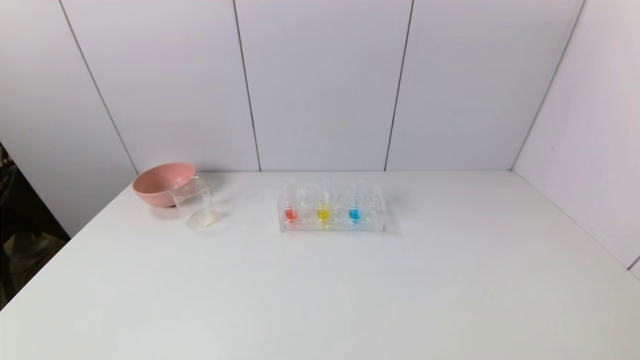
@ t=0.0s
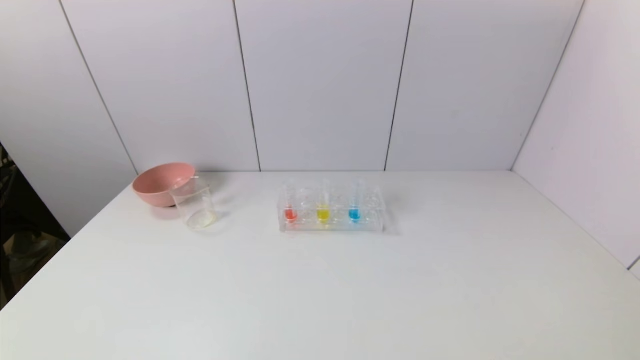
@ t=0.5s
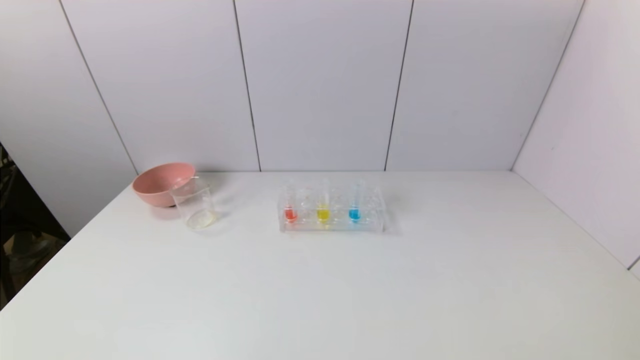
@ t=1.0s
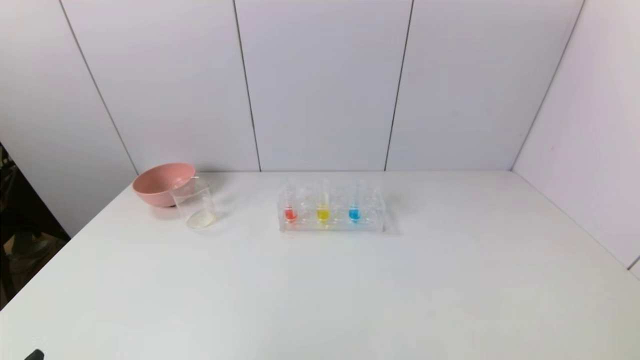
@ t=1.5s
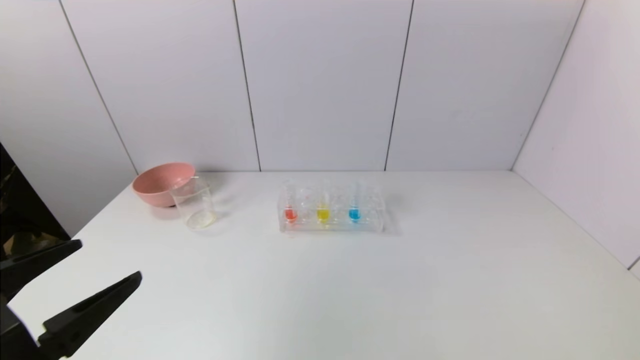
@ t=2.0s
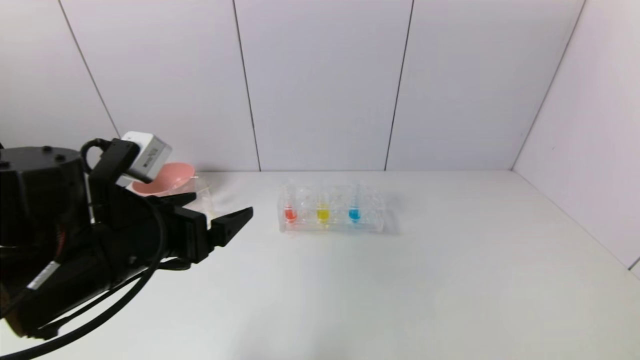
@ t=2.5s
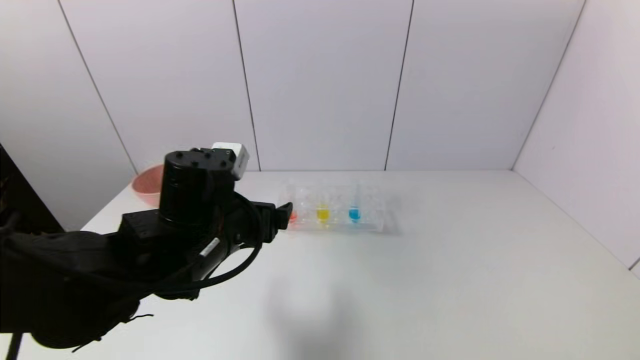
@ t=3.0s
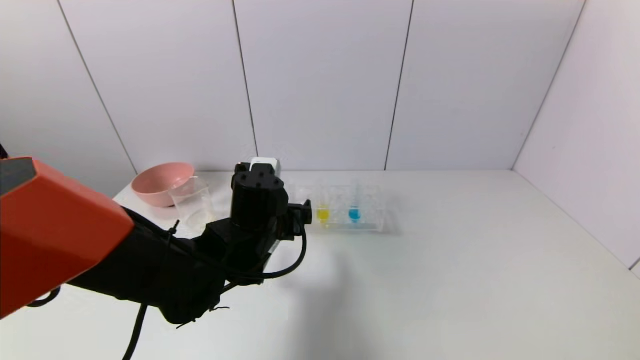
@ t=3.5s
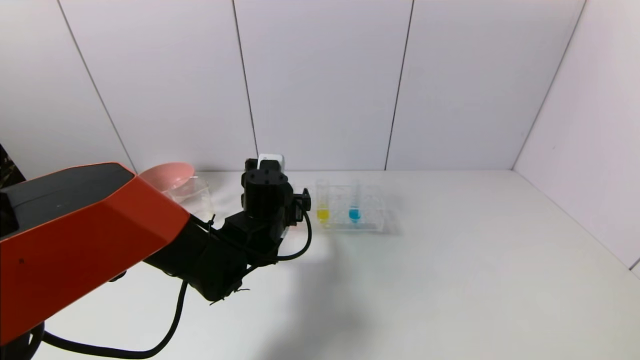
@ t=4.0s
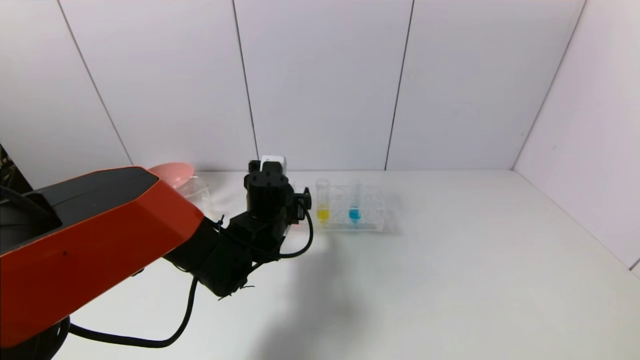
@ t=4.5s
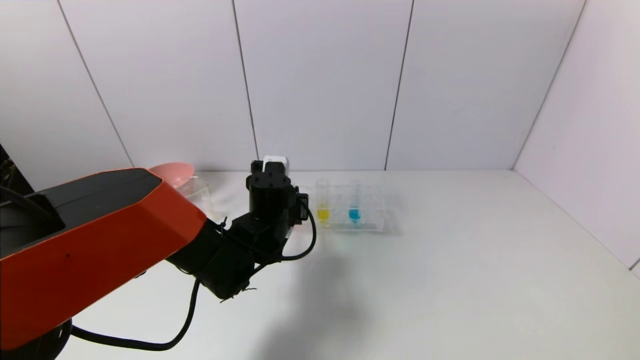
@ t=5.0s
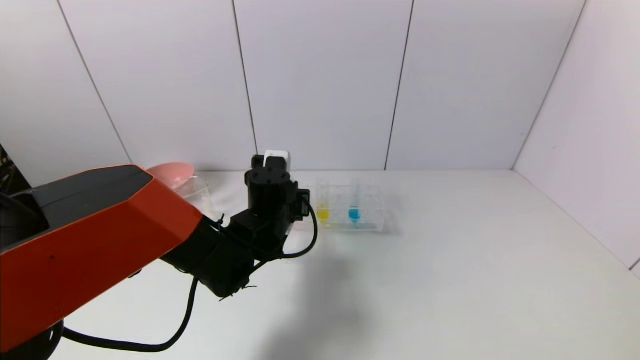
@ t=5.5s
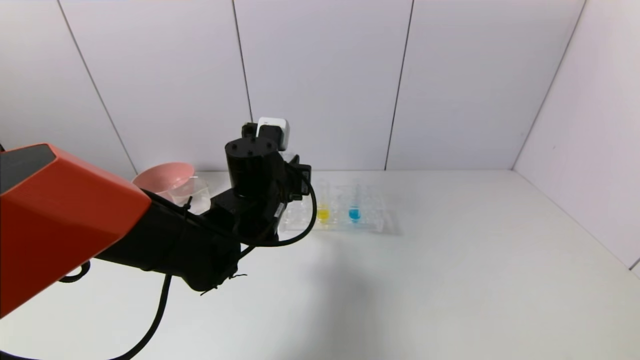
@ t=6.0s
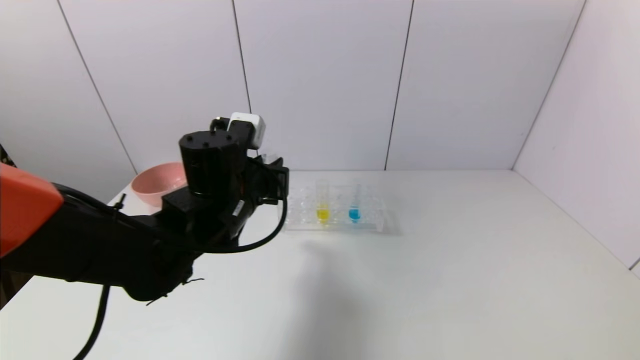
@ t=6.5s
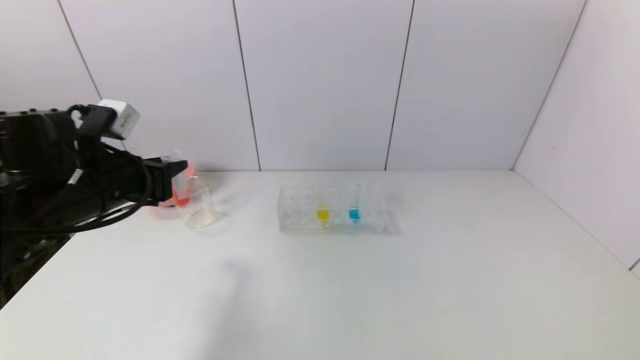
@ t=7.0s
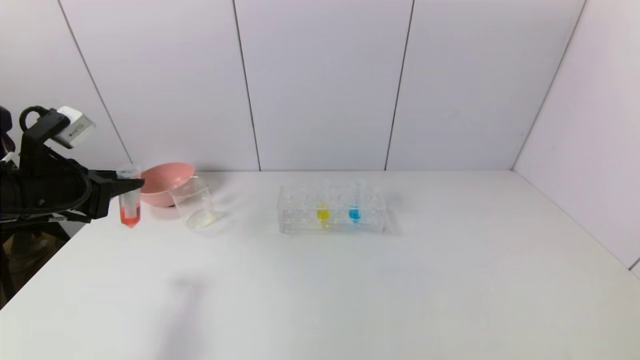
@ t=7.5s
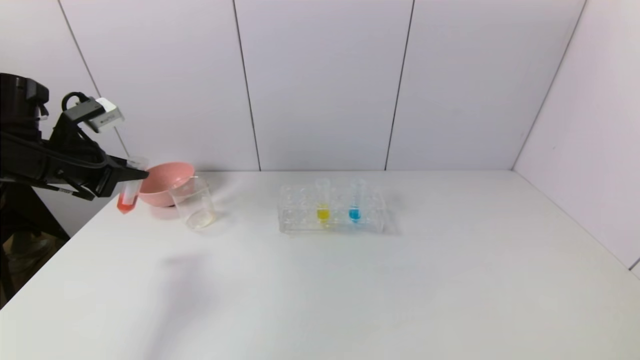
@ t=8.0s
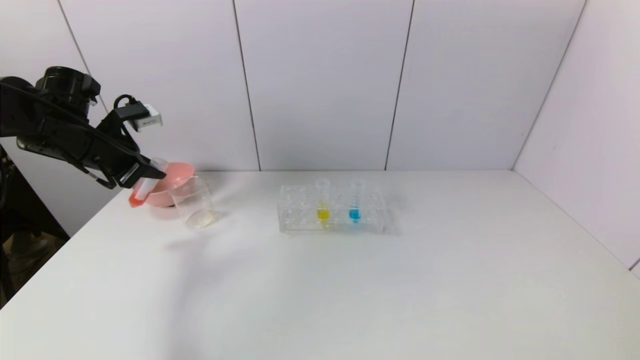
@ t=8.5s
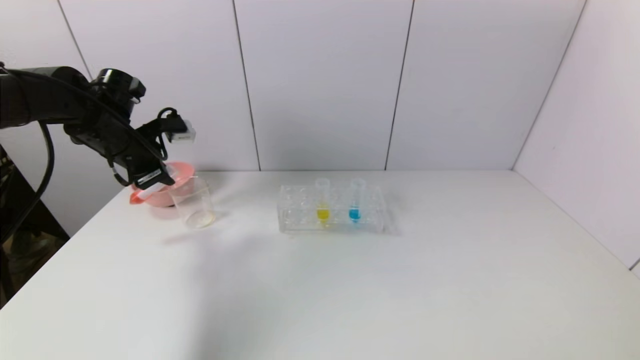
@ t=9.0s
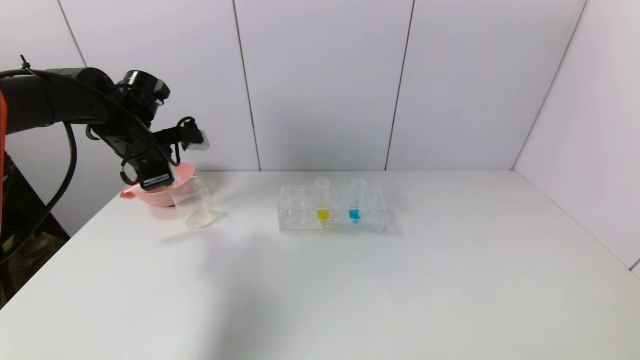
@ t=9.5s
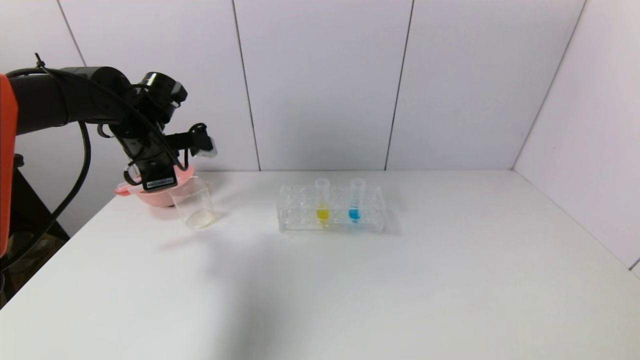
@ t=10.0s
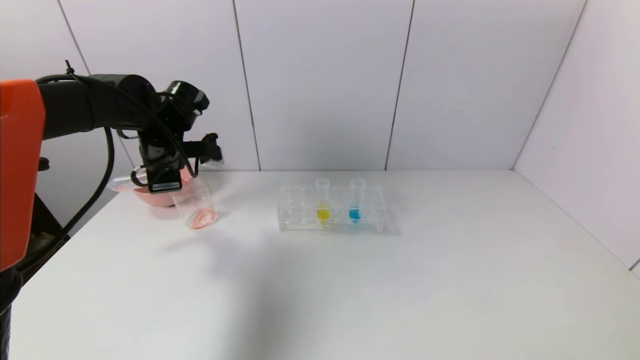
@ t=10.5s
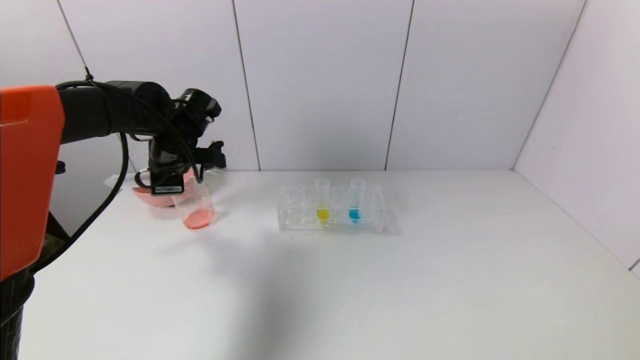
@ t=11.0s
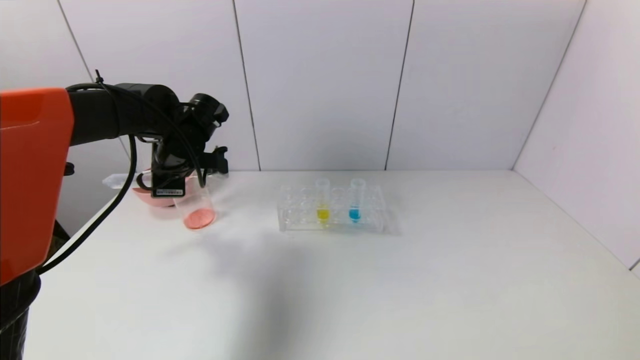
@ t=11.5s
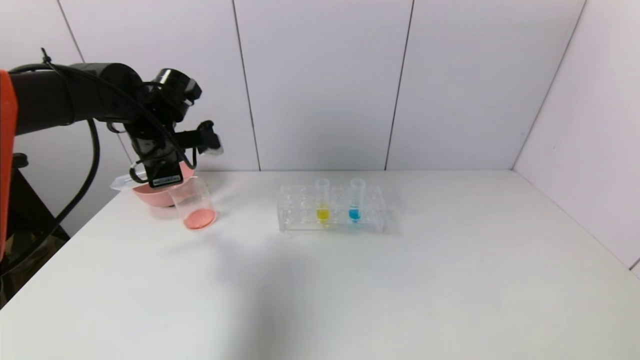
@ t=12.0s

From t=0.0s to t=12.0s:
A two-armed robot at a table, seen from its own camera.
Task of the whole recording: pick up the test tube with yellow pigment and the test tube with red pigment by grippers and pour them into the beaker.
Step, from t=0.0s to t=5.0s: Grasp the red reagent with the left gripper.
Step, from t=5.5s to t=11.5s: Pour the red reagent into the graduated cylinder with the left gripper.
From t=0.0s to t=2.0s: The left gripper moves upward and forward, about 15 cm.
From t=2.0s to t=4.0s: The left gripper travels forward and to the right by some 30 cm.
From t=4.0s to t=6.0s: The left gripper is displaced upward by roughly 5 cm, and closes.
From t=6.0s to t=8.0s: The left gripper goes roughly 30 cm to the left.
From t=8.0s to t=10.0s: The left gripper goes some 15 cm to the right and forward.

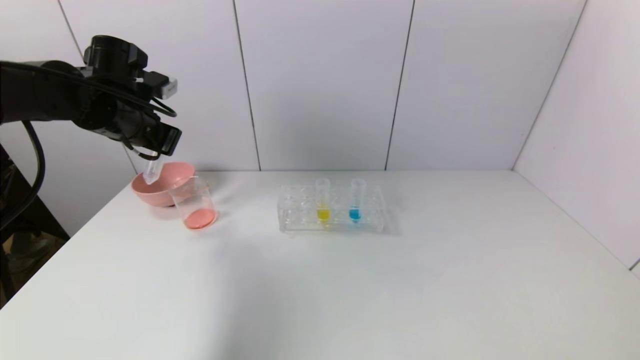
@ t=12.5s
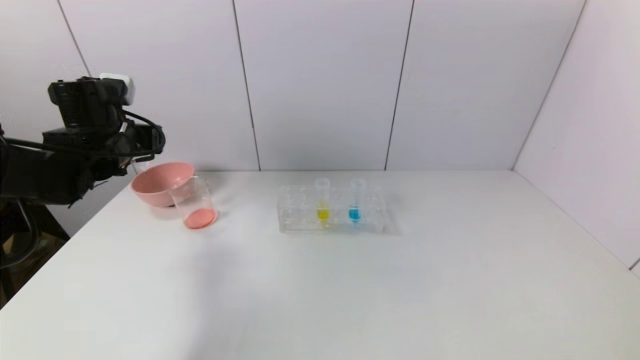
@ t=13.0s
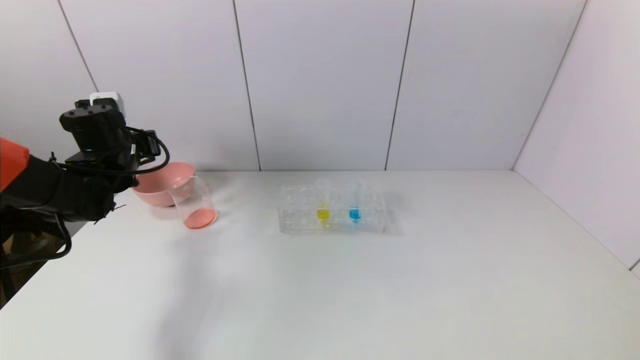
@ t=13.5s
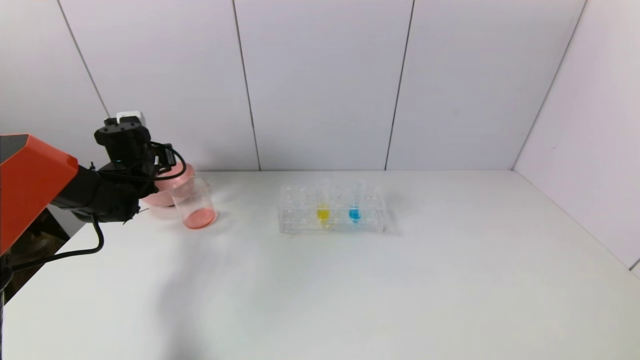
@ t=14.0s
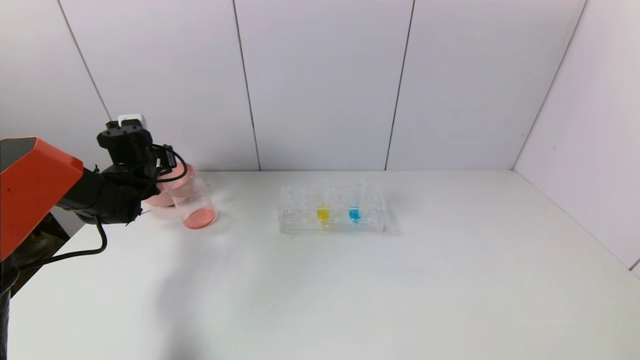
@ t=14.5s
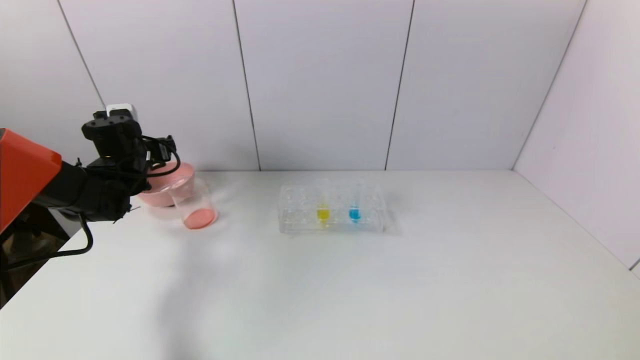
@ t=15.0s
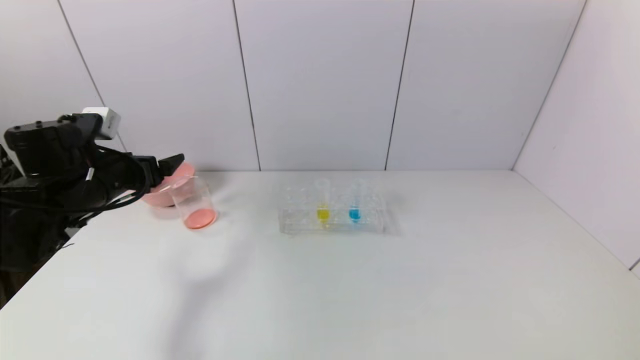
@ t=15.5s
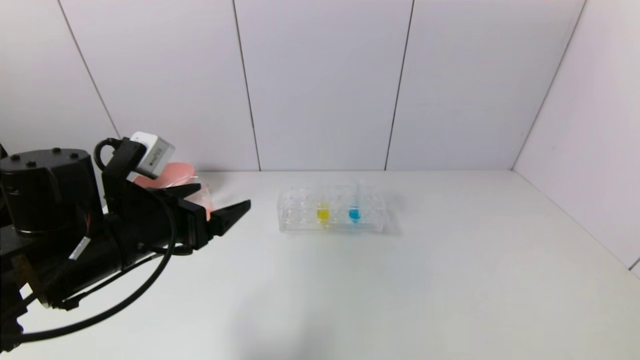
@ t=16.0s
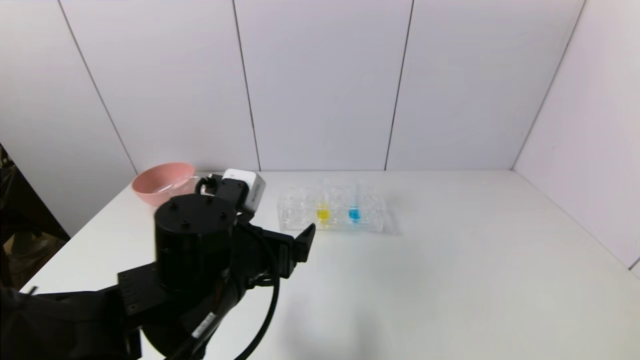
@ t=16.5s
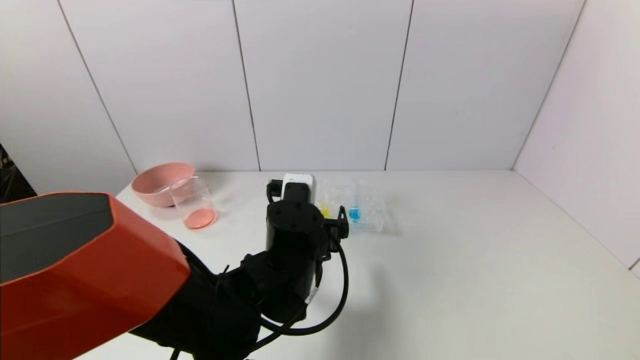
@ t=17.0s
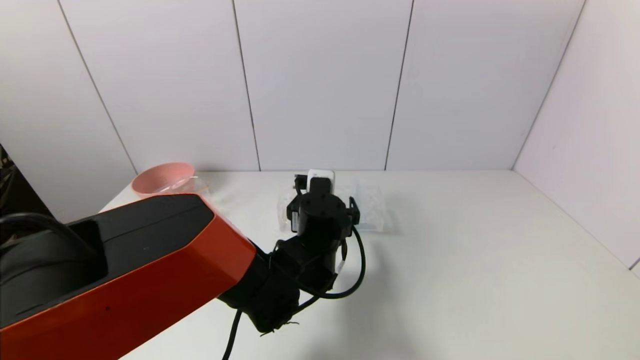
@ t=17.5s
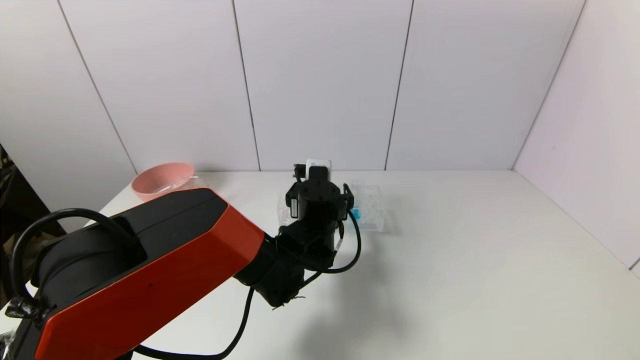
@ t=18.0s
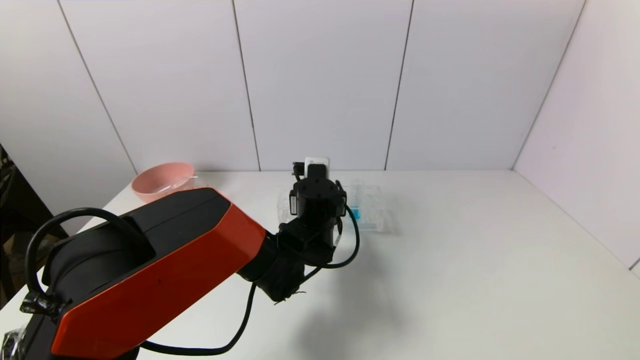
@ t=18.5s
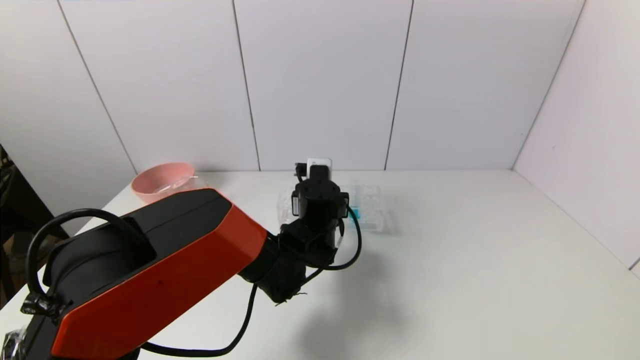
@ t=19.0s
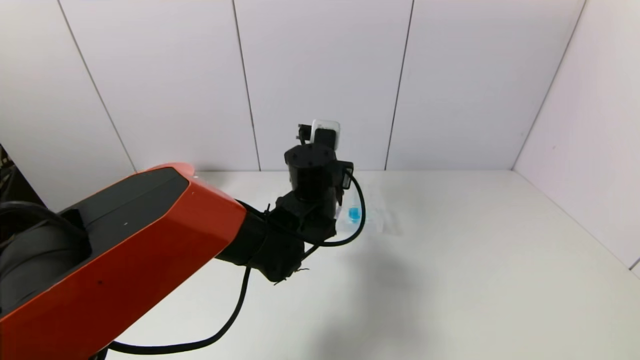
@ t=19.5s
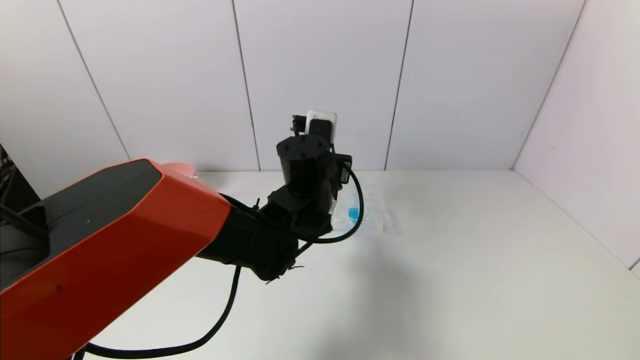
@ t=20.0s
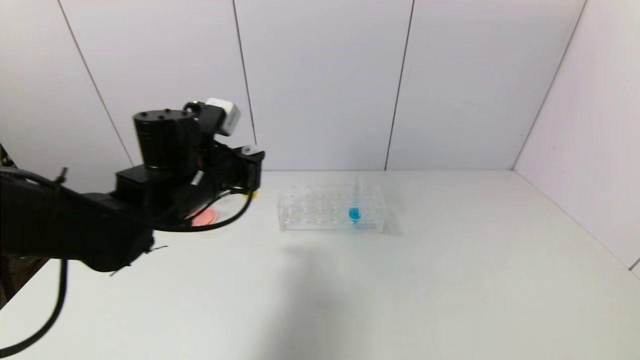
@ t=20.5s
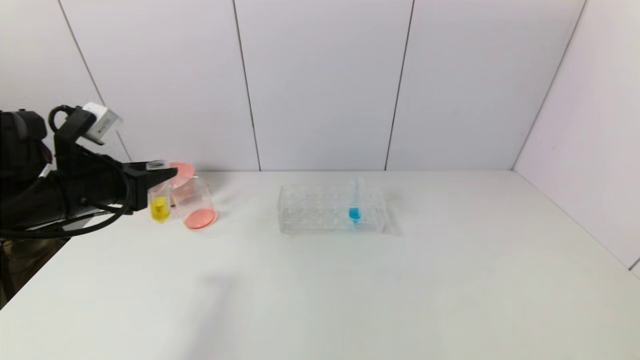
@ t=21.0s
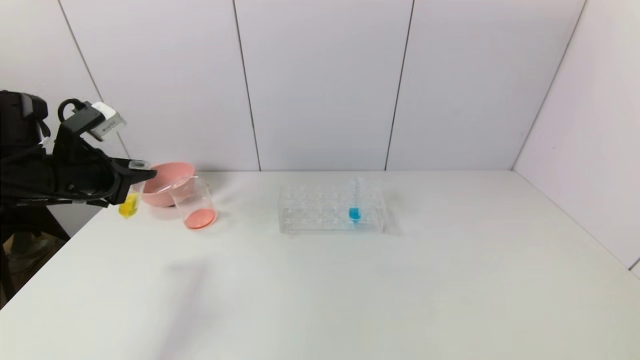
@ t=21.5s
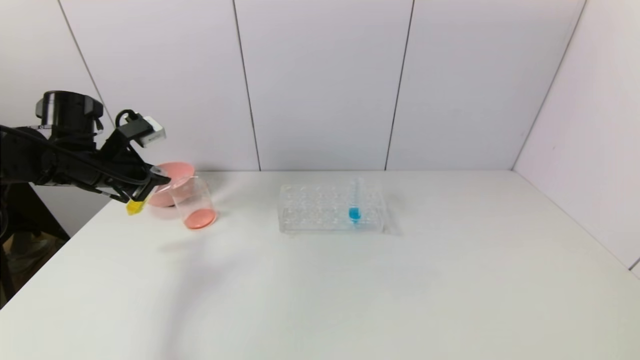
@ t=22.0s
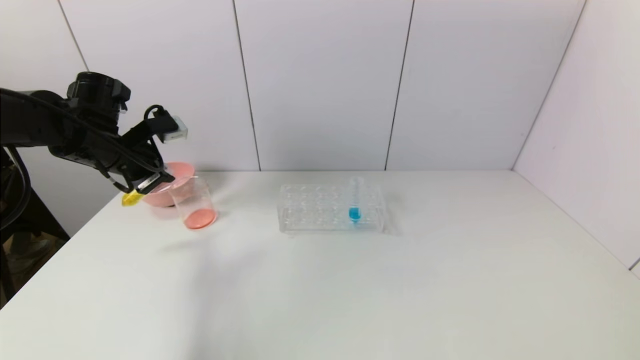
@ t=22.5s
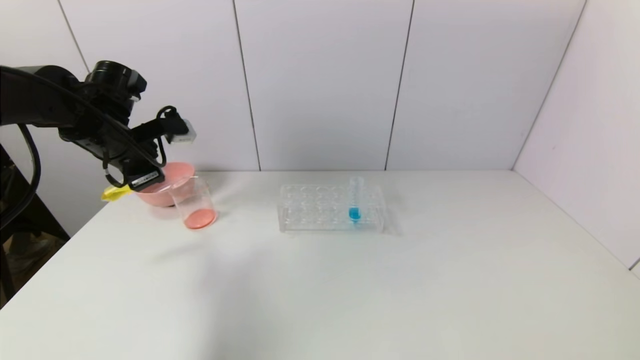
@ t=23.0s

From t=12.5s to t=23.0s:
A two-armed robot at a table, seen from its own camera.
Task of the whole recording: pick up the test tube with yellow pigment and the test tube with red pigment by grippers and pour them into the beaker.
Step, from t=12.5s to t=14.5s: Place the test tube into the pink bowl with the left gripper.
Step, from t=15.0s to t=18.5s: Grasp the yellow reagent with the left gripper.
From t=12.5s to t=14.5s: The left gripper moves downward, forward and to the left, roughly 15 cm, and opens its fingers.
From t=14.5s to t=16.5s: The left gripper moves backward and to the right, some 35 cm, and opens up.
From t=16.5s to t=19.0s: The left gripper heads forward and to the right, covering about 20 cm, and closes up.
From t=19.0s to t=21.0s: The left gripper moves to the left, roughly 30 cm.
From t=21.0s to t=23.0s: The left gripper shifts about 10 cm forward.
